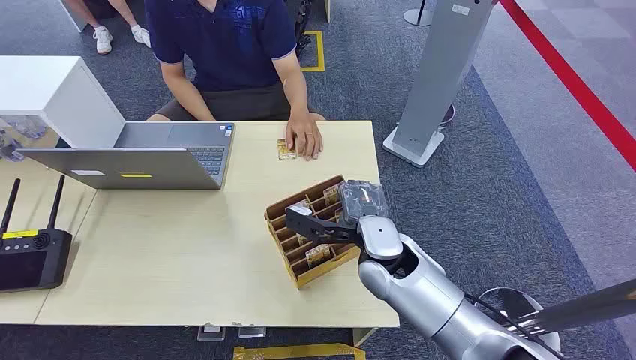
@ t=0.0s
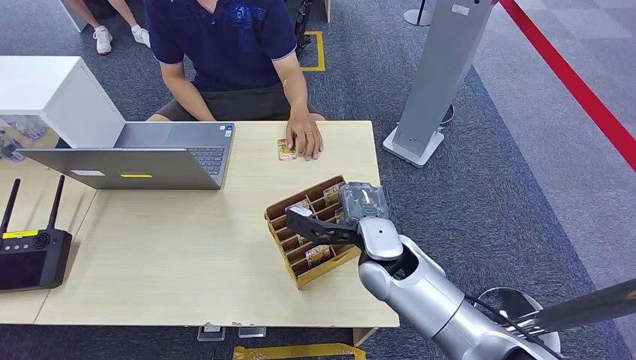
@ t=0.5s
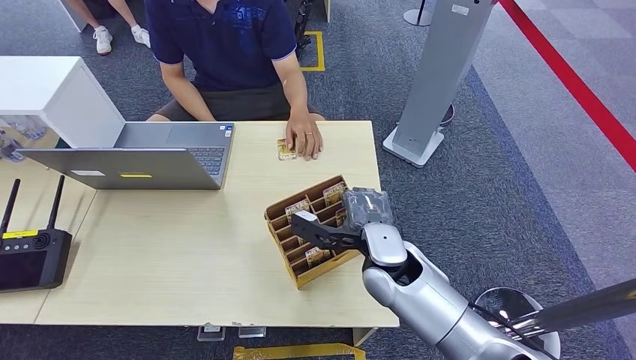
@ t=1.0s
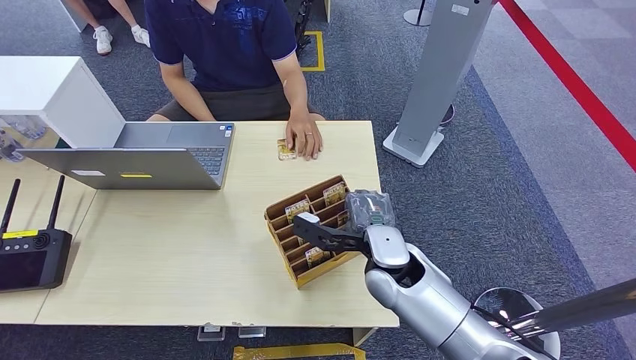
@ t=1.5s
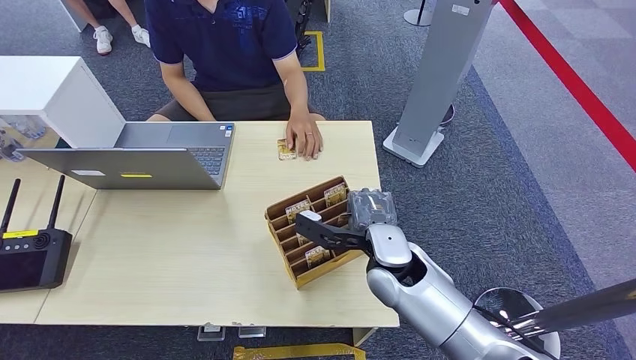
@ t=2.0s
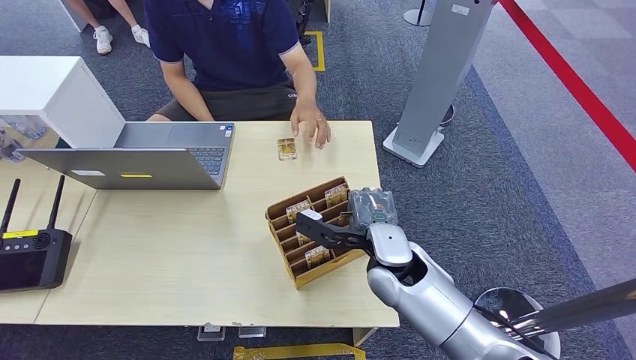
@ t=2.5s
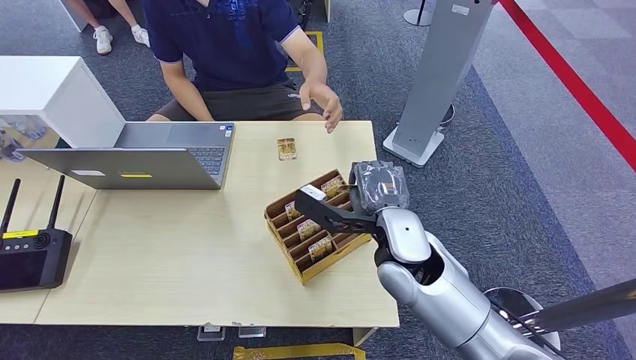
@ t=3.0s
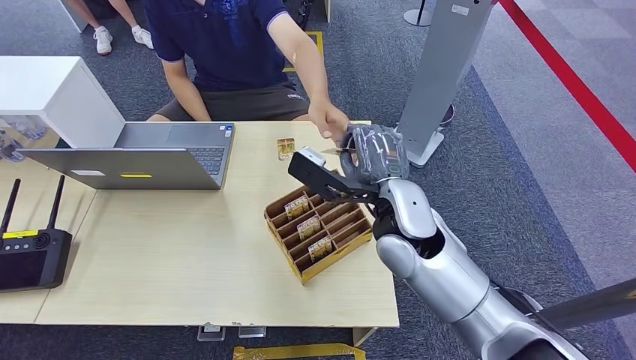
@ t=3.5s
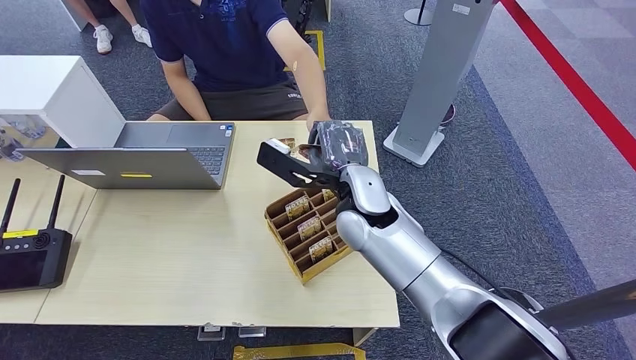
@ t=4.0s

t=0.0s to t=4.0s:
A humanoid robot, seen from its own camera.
Task of the whole recording: Pick up the card and hand it over to the target person.
Step, t=0.0s to t=2.5s: Pick up the key card from the card box.
Step, t=3.5s to t=4.0s: Hand the key card to the target.
t=2.0s to t=4.0s: The right hand heads to the left, forward and upward, covering some 10 cm.
